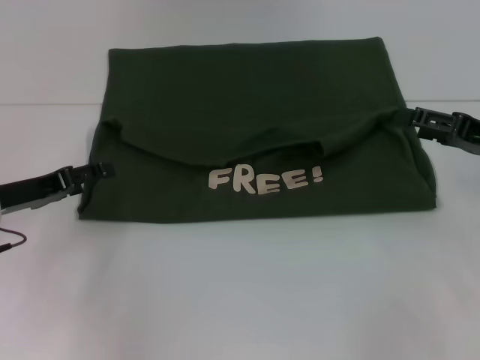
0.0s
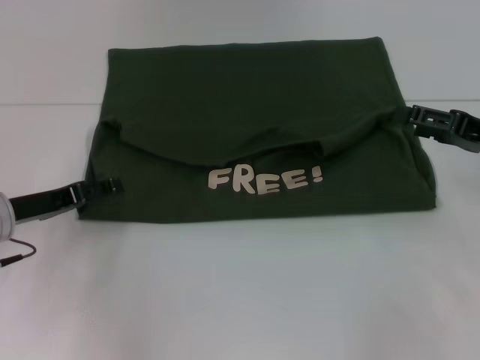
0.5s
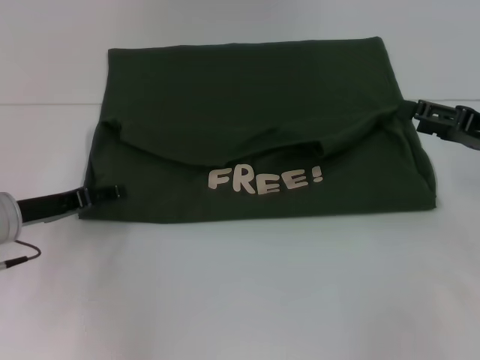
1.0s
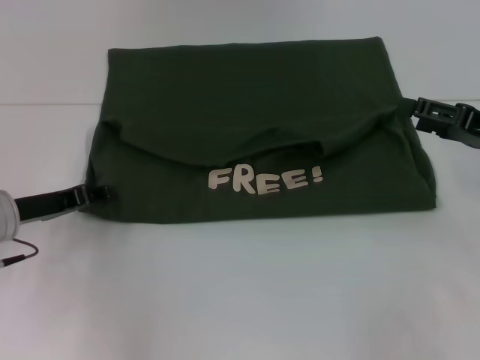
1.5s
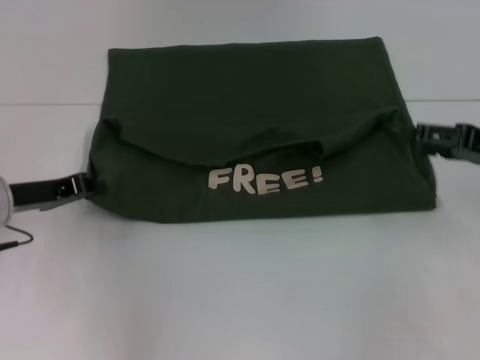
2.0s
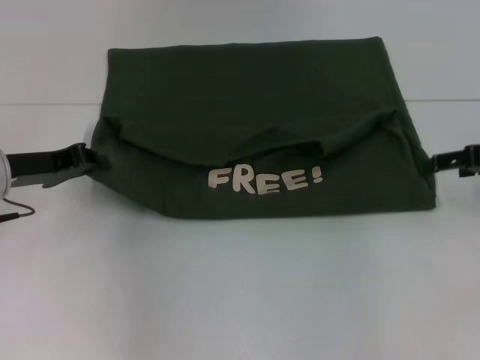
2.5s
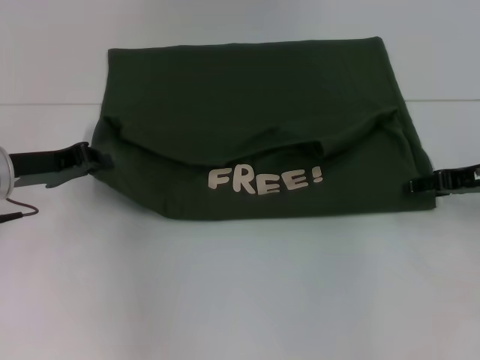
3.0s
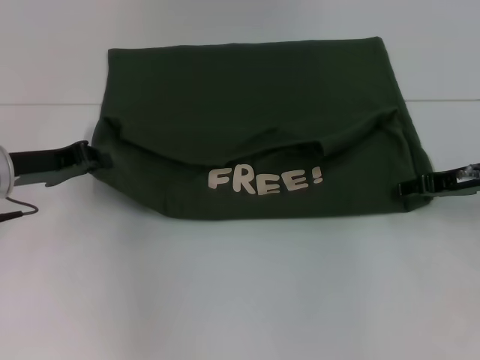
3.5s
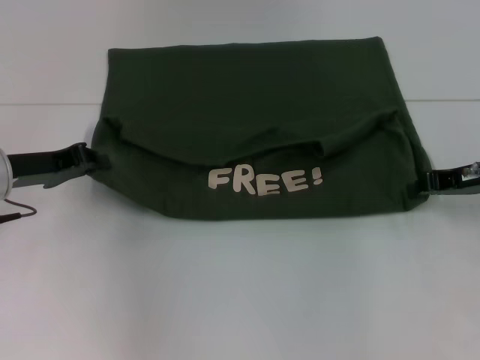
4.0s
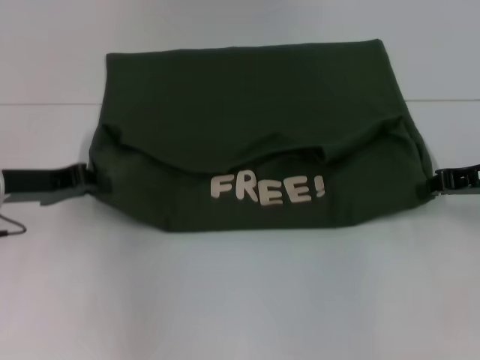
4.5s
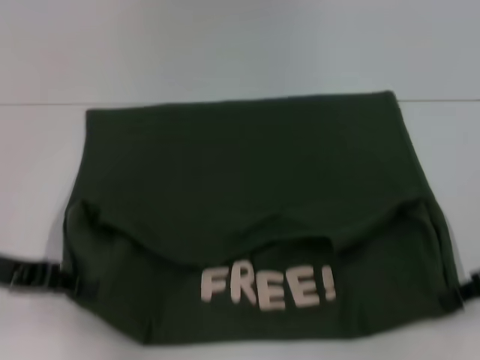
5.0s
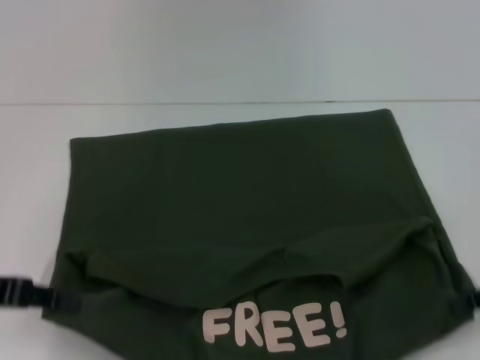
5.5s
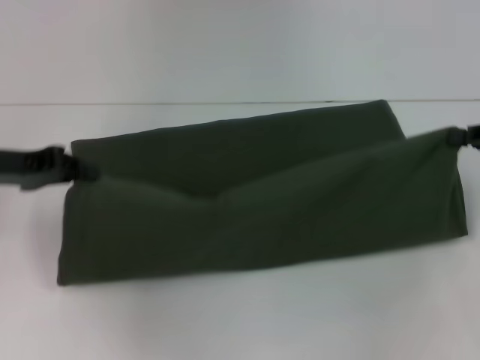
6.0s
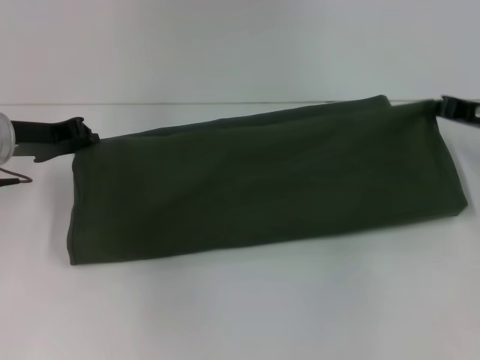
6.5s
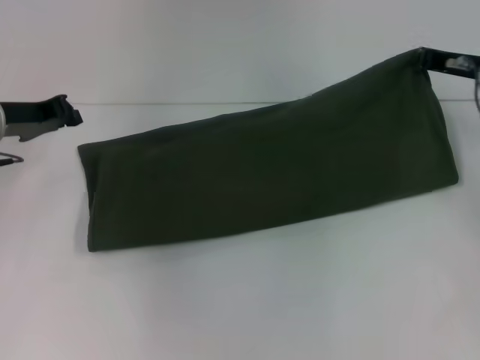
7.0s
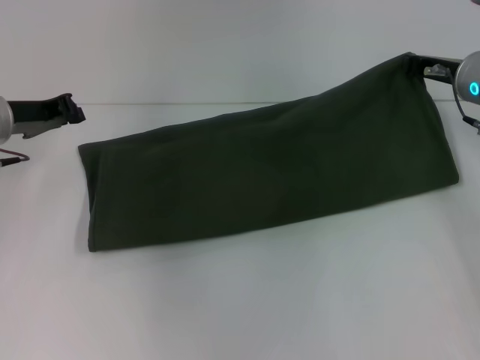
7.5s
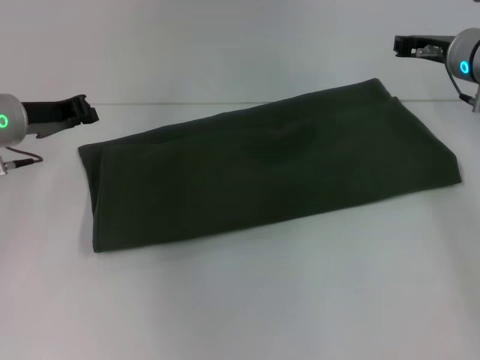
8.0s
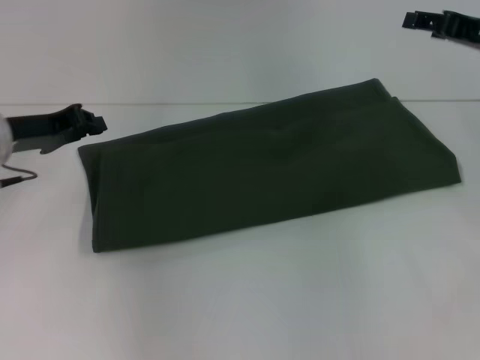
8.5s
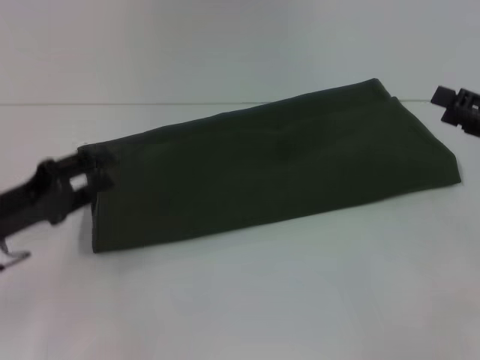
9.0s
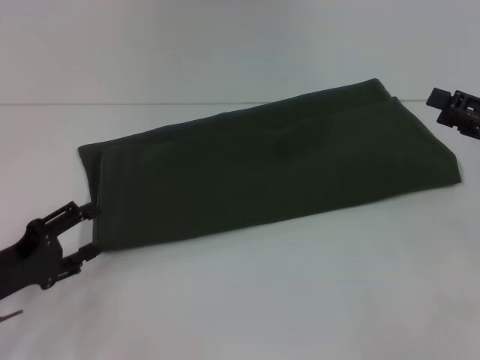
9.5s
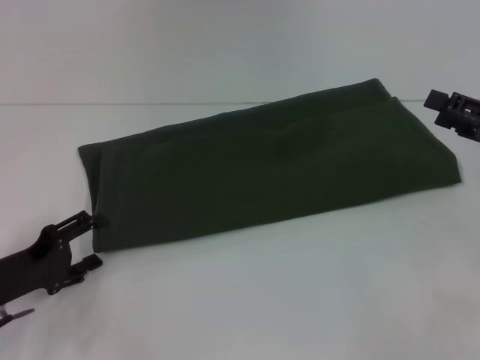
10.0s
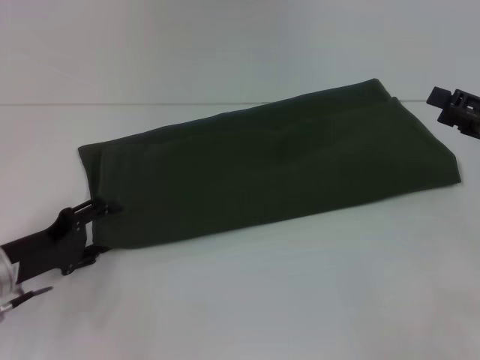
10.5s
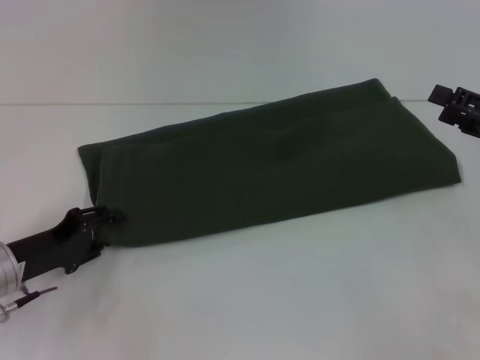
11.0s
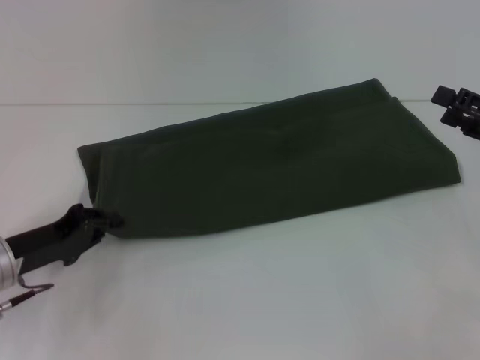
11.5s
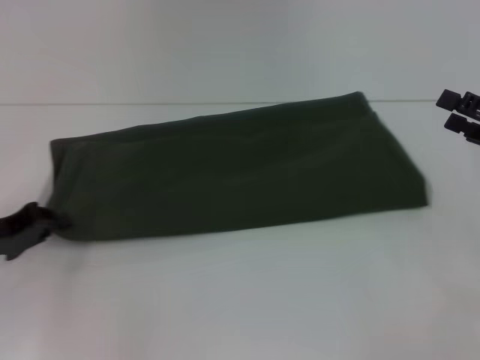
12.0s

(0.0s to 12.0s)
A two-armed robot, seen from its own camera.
Step, 0.0s - 5.0s: Pull the clothes with your left hand.
Step, 0.0s - 5.0s: Pull the clothes with your right hand.
Step, 5.5s - 6.5s: Fold the clothes with your left hand.
Step, 7.0s - 8.0s: Fold the clothes with your right hand.
0.0s - 2.0s: The left gripper closes.
2.0s - 4.0s: The right gripper moves roughly 5 cm, and closes its fingers.
4.0s - 6.0s: The right gripper goes roughly 5 cm to the right. Meanwhile the left gripper goes backward and returns, roughly 10 cm each way.
6.0s - 8.0s: The right gripper moves forward and to the left, approximately 15 cm. Meanwhile the left gripper is displaced forward by about 5 cm.
8.0s - 10.0s: The right gripper goes about 20 cm backward and to the right, and opens its fingers, while the left gripper goes about 20 cm backward and downward, and opens its fingers.
10.0s - 12.0s: The left gripper shifts by some 5 cm, and closes its fingers.

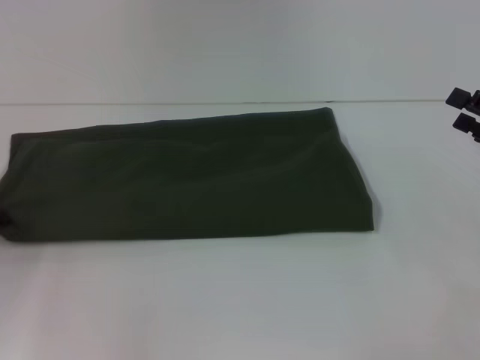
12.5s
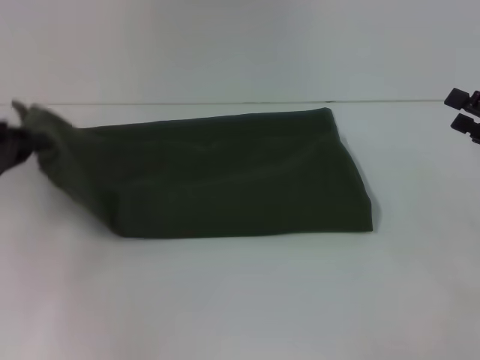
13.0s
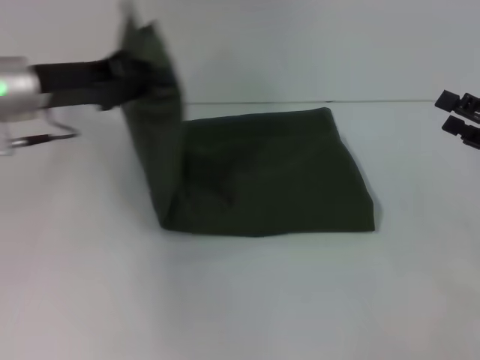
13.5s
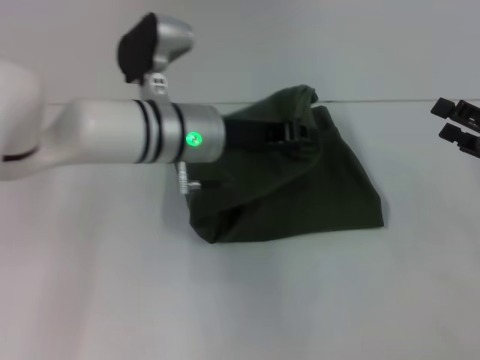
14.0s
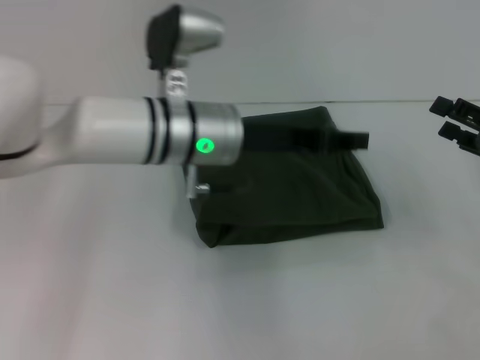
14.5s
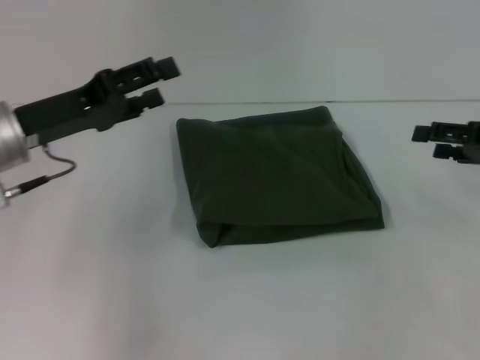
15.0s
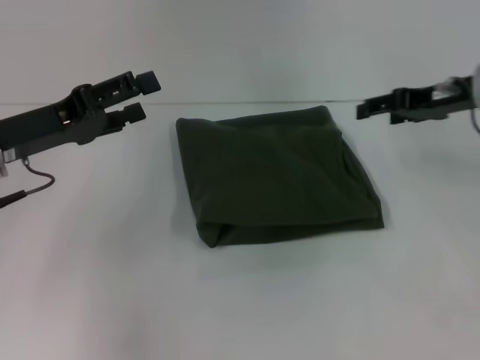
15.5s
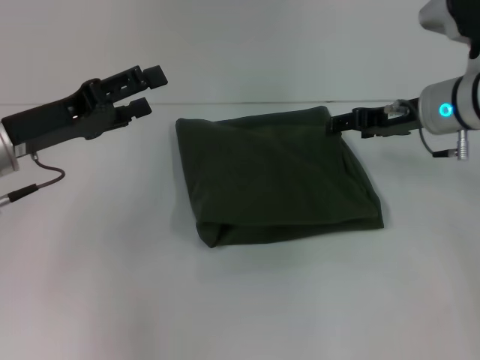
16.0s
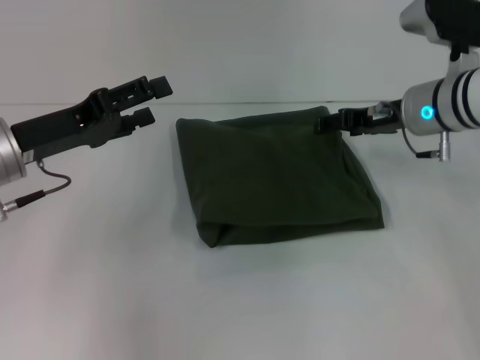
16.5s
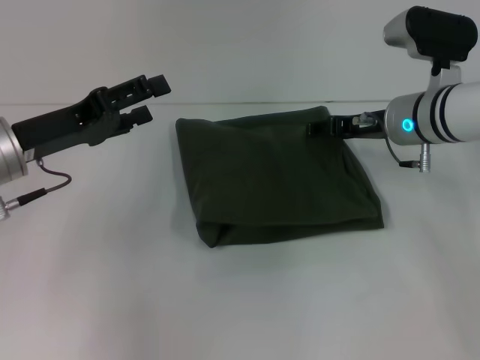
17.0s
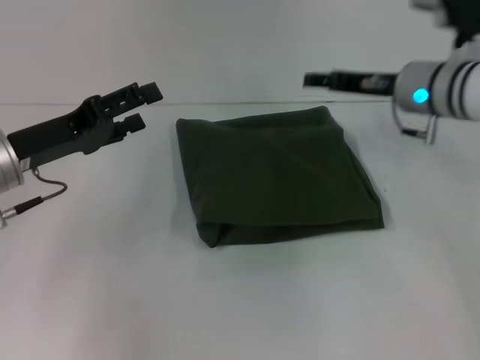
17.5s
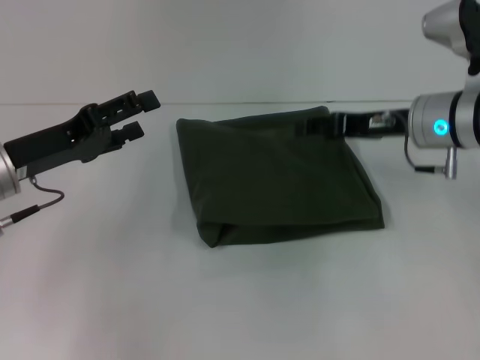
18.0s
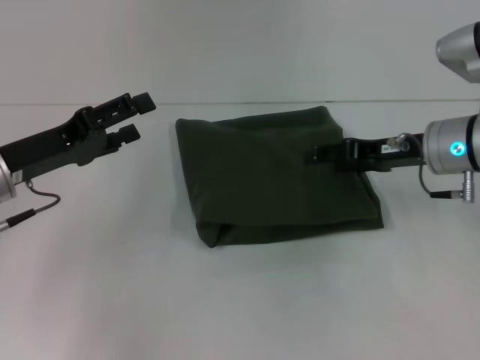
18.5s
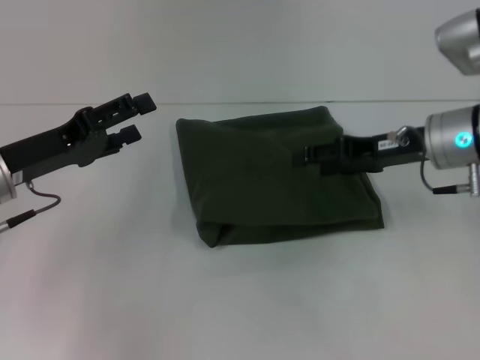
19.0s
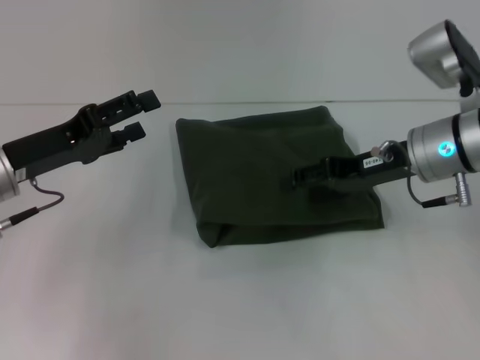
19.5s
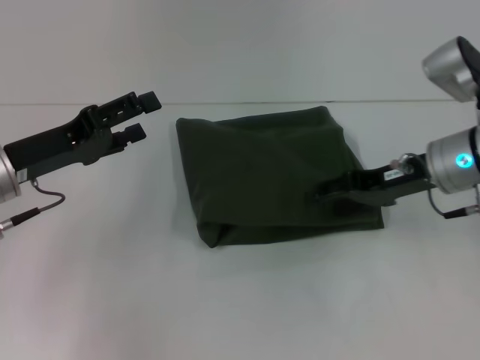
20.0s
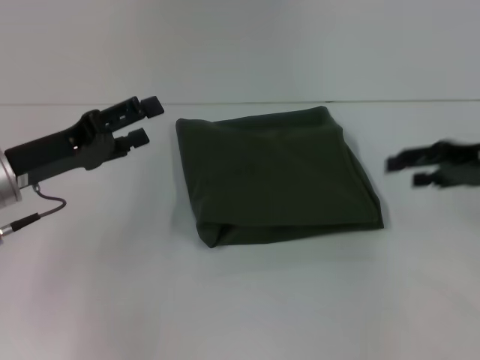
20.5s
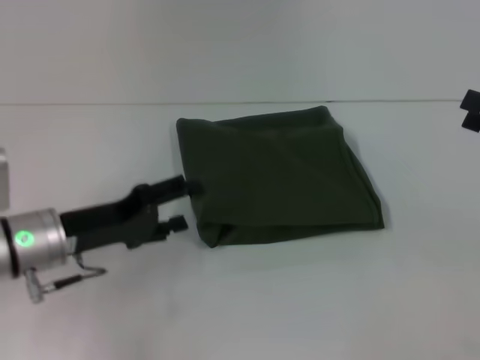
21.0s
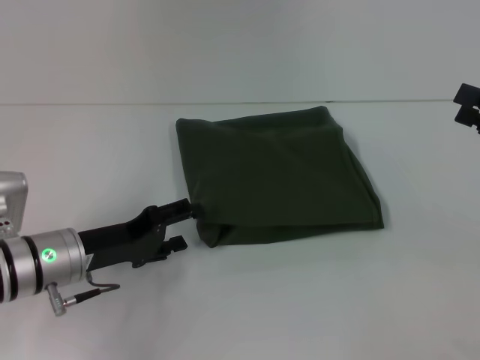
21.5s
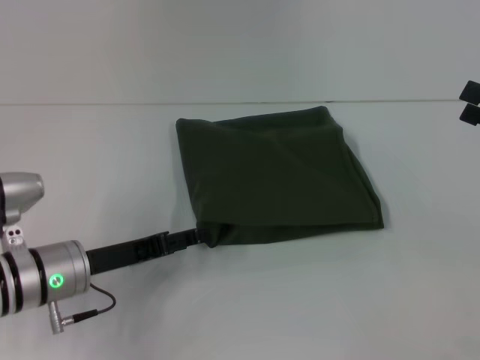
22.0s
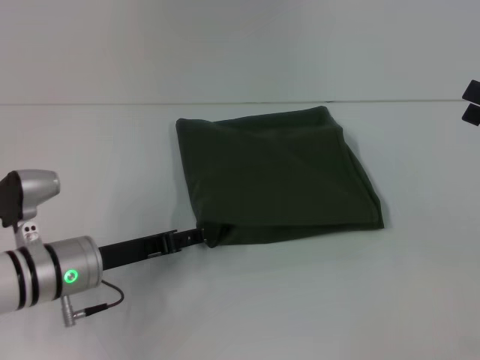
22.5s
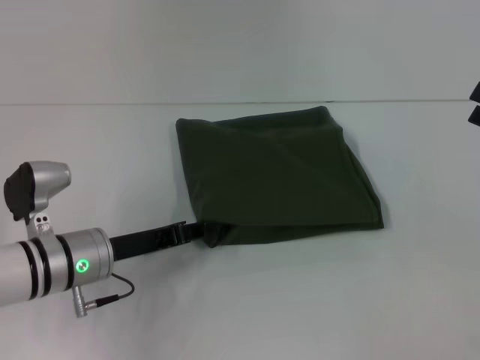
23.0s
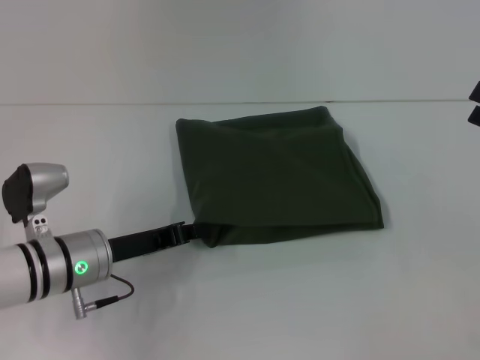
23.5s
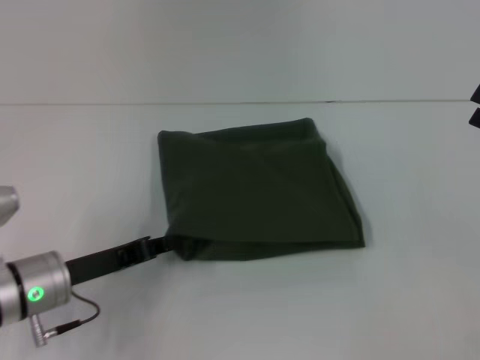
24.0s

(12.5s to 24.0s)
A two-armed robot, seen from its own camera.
12.5s - 14.5s: The left gripper shifts some 30 cm to the right.
14.5s - 16.5s: The left gripper shifts some 20 cm to the left, and opens. Meanwhile the right gripper is displaced to the left and forward by about 20 cm.
16.5s - 18.5s: The right gripper moves roughly 5 cm.
18.5s - 20.0s: There are only small adjustments of the grippers.
20.0s - 22.0s: The right gripper shifts about 15 cm to the right and backward. The left gripper shifts roughly 10 cm downward.
22.0s - 24.0s: The left gripper closes.

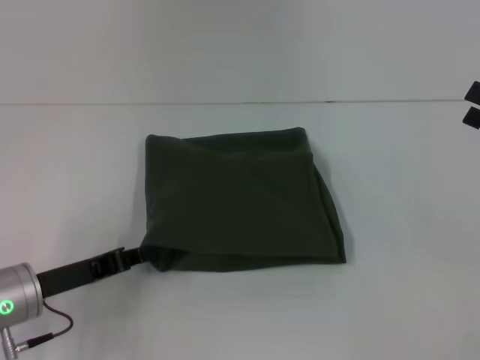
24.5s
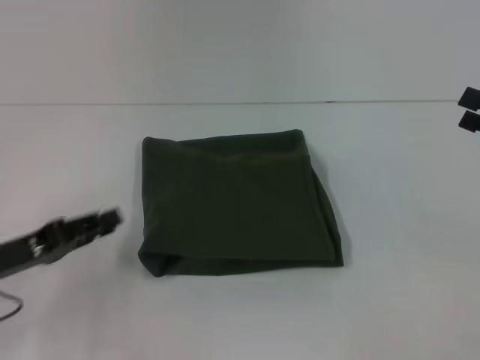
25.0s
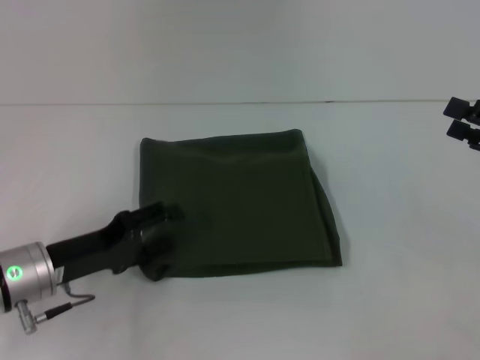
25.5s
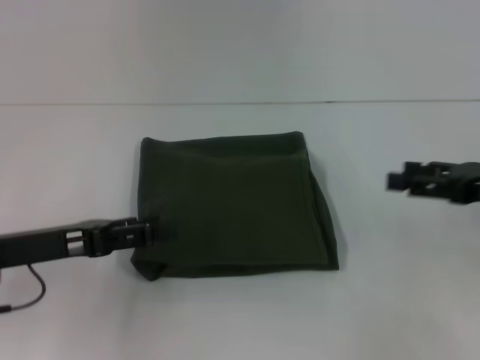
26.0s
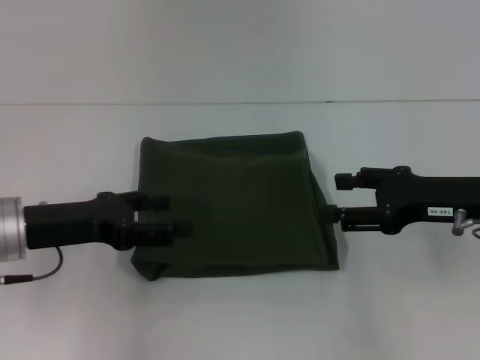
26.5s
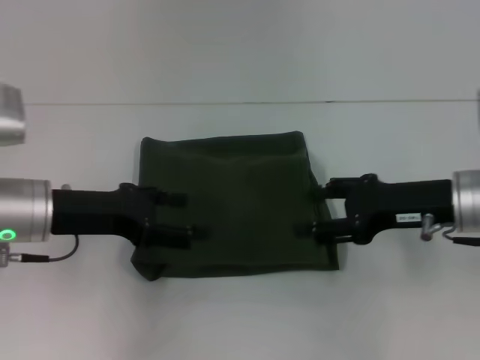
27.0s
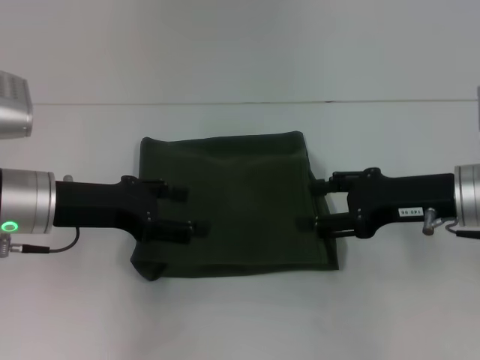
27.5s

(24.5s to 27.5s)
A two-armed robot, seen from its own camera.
24.5s - 26.0s: The left gripper moves upward, about 5 cm, and opens its fingers.
26.0s - 27.5s: The right gripper travels to the left by about 10 cm, while the left gripper goes roughly 5 cm forward.
